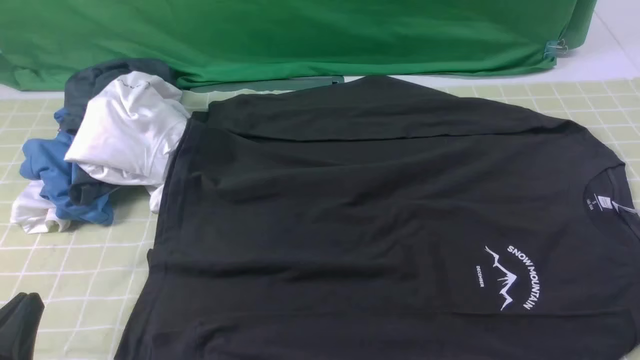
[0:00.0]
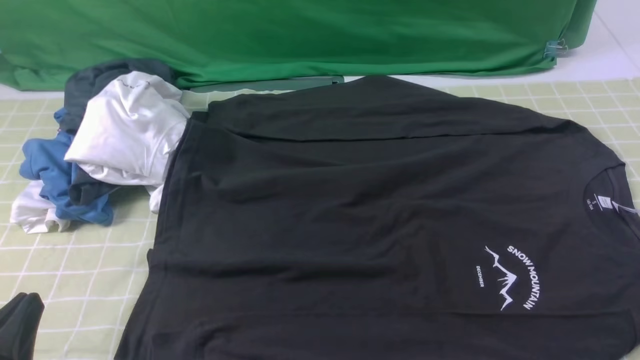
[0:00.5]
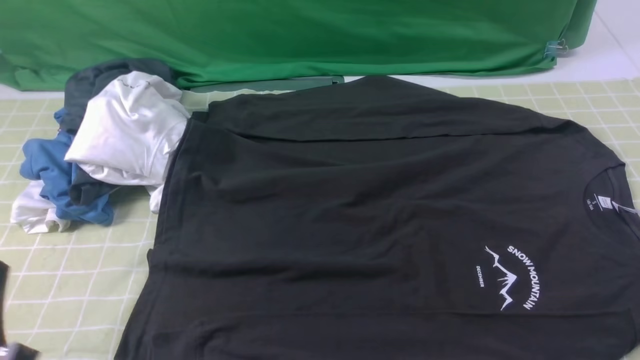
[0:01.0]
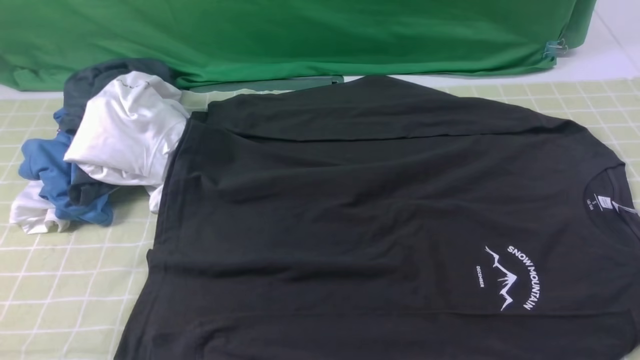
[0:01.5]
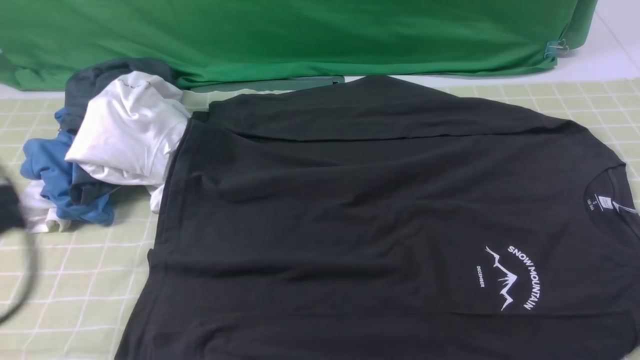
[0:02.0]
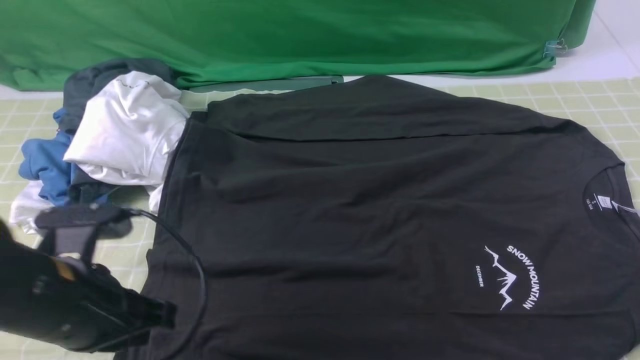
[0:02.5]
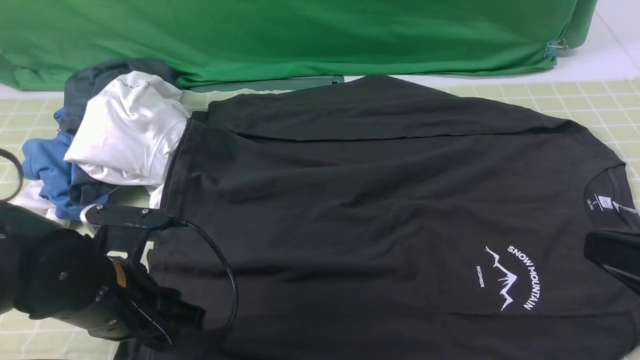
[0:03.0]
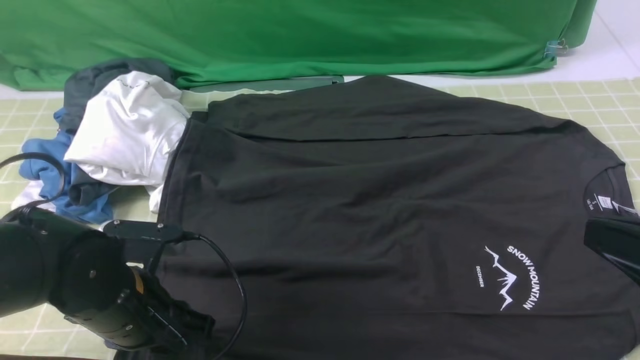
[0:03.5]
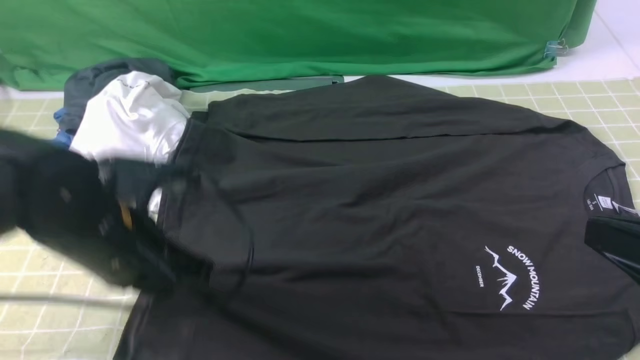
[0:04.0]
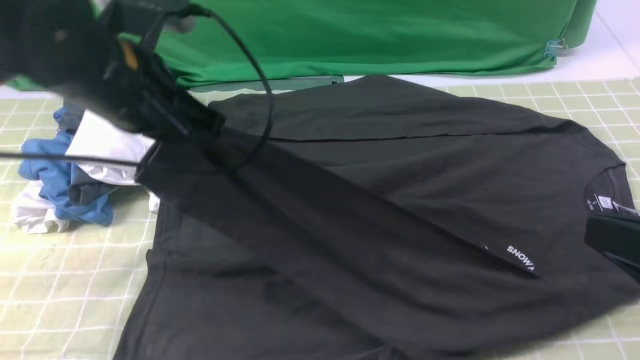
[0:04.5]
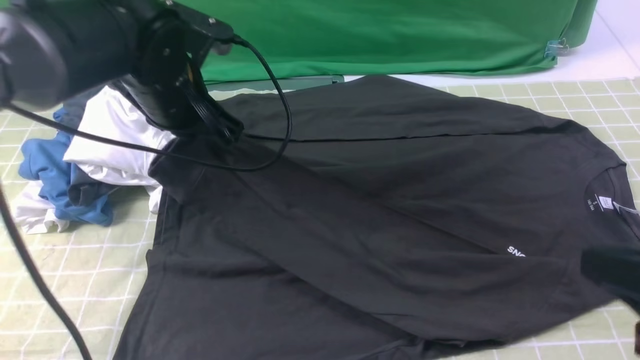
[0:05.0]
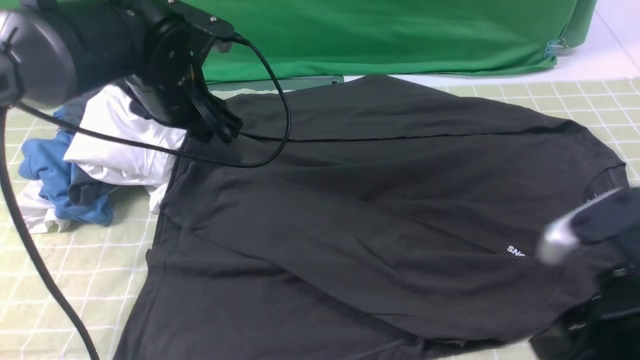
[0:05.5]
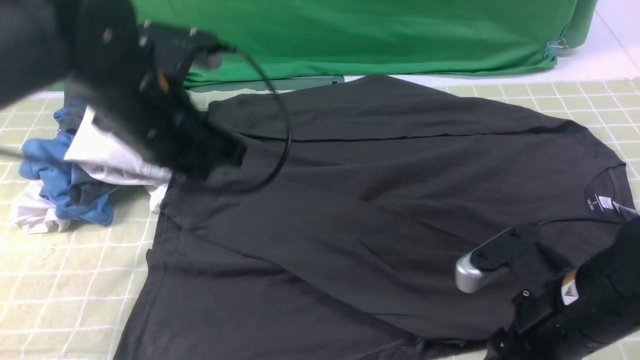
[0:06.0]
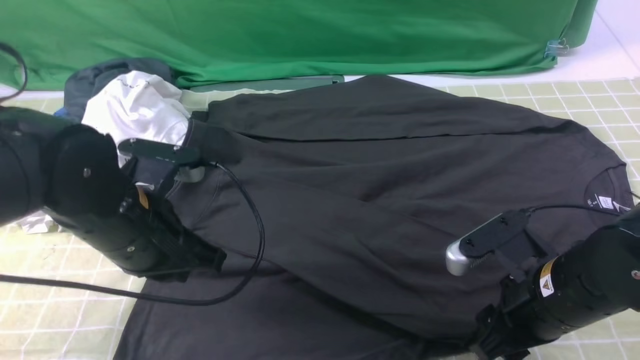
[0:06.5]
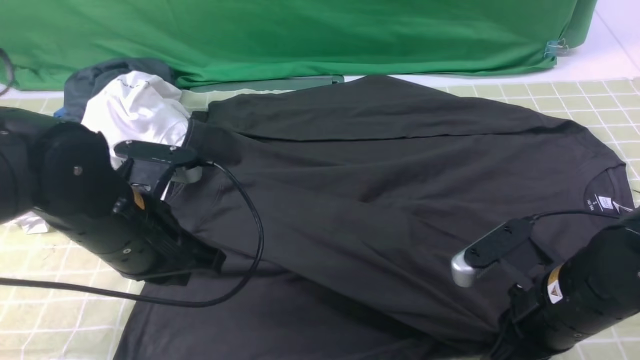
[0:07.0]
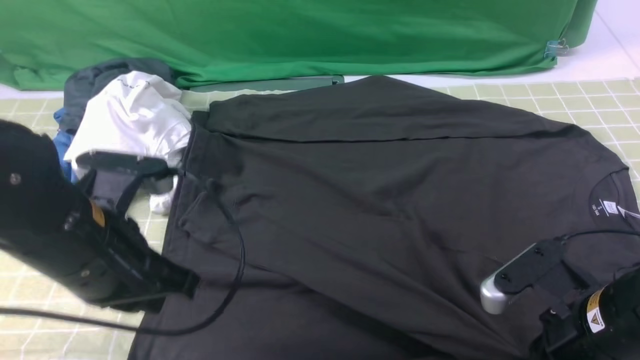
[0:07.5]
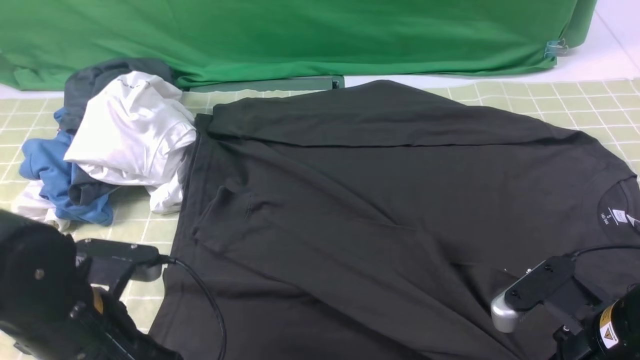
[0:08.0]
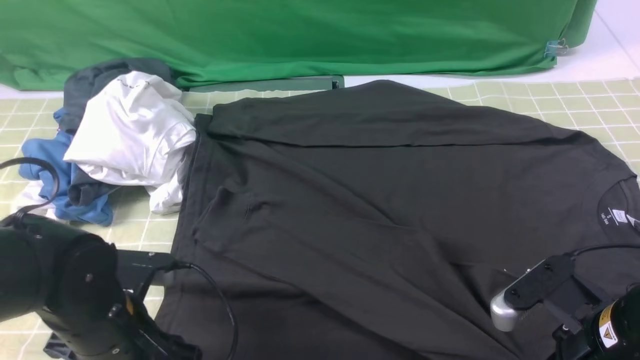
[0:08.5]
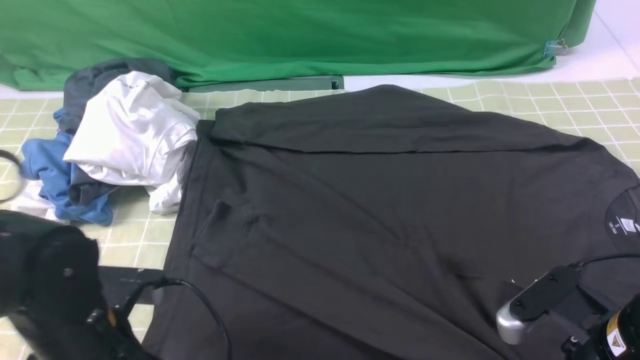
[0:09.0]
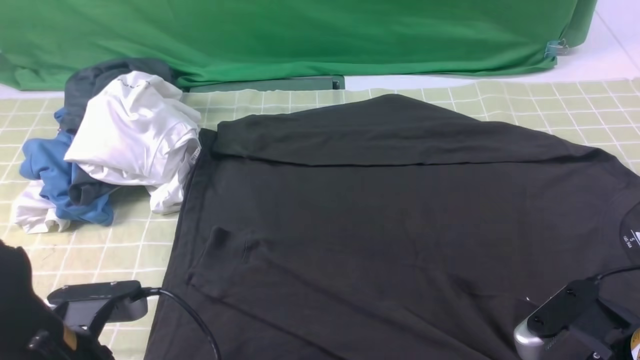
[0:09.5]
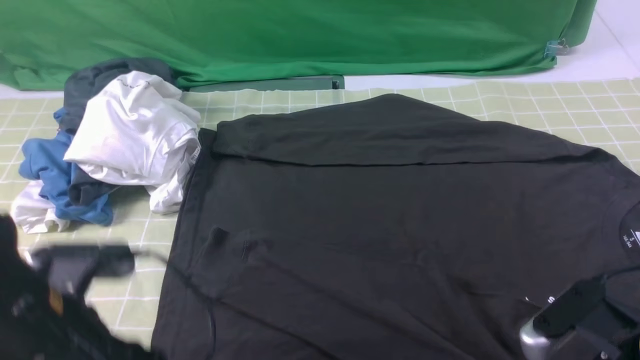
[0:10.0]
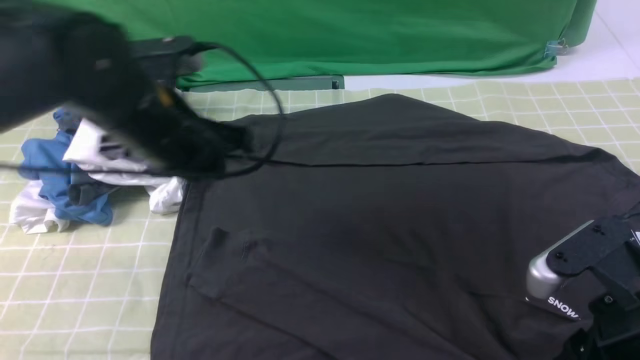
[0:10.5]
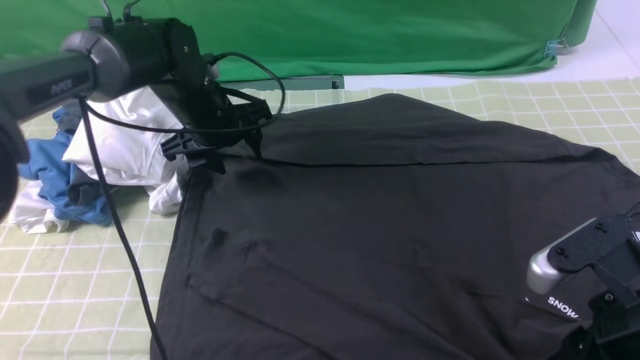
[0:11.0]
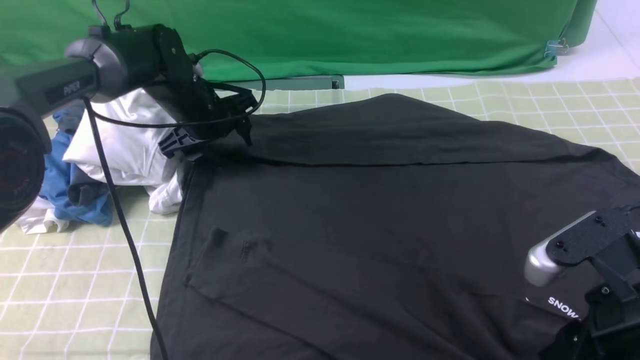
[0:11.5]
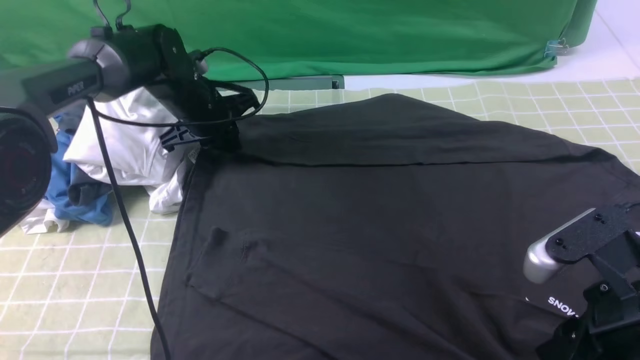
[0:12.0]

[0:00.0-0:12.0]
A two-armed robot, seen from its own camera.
Step, 0:00.0 to 0:03.5: use the left arm to clamp the cuff closest to it.
Step, 0:04.0 to 0:05.0: use the left arm to drag and place the cuff at the centered position on the left edge of the fabric.
Step, 0:05.5 to 0:12.0: use the left arm to clamp the cuff farthest from it.
0:00.0 to 0:02.0: The left gripper travels upward and forward by approximately 15 cm.
0:02.0 to 0:04.0: The right gripper travels to the left and upward by approximately 10 cm, and closes. Meanwhile the left gripper travels forward, downward and to the right by about 15 cm, and opens and closes again.
0:04.0 to 0:06.0: The right gripper moves downward, forward and to the left, roughly 15 cm, and opens. The left gripper is displaced forward by approximately 5 cm, and opens, then closes again.
0:06.0 to 0:08.0: The left gripper shifts some 15 cm backward and downward, and opens its fingers, while the right gripper closes its fingers.
0:08.0 to 0:10.0: The left gripper travels upward by approximately 5 cm, and closes, then reopens. The right gripper opens up.
0:10.0 to 0:12.0: The left gripper moves forward, roughly 30 cm, and closes its fingers.

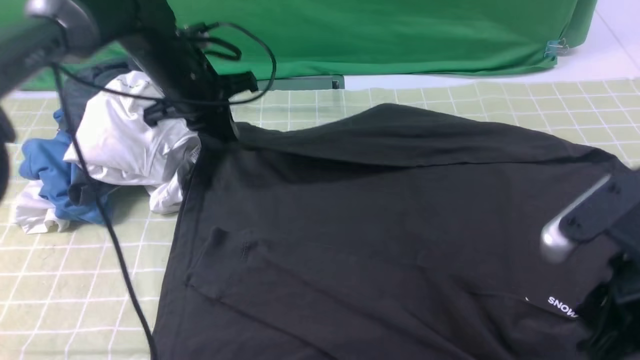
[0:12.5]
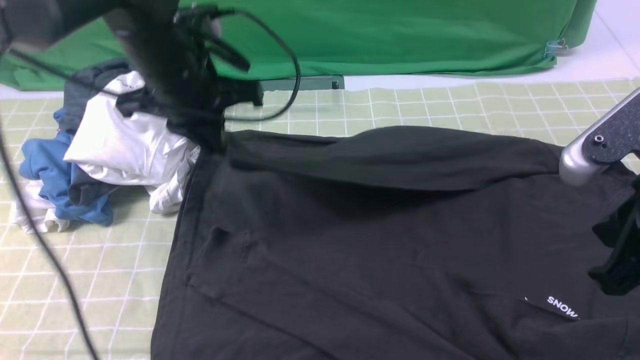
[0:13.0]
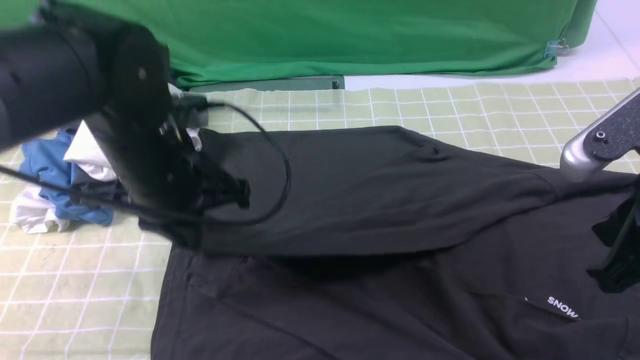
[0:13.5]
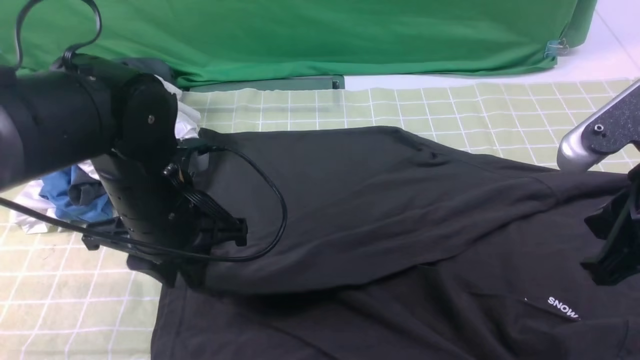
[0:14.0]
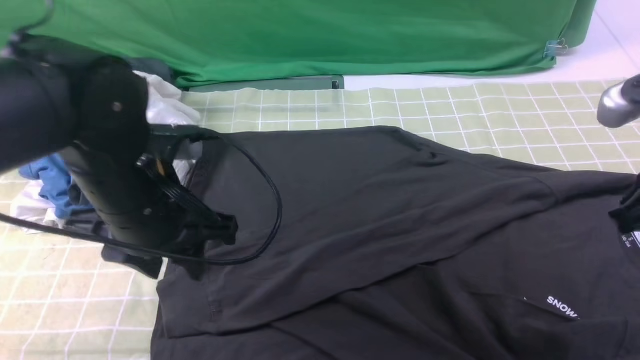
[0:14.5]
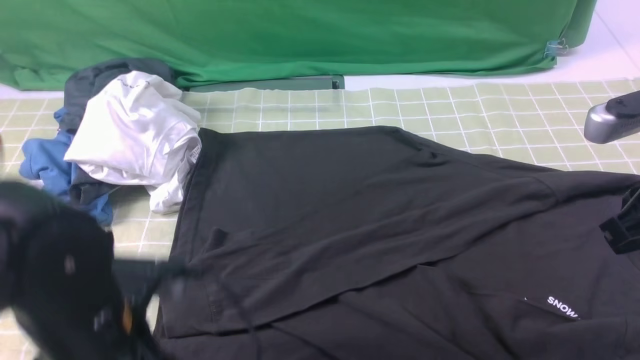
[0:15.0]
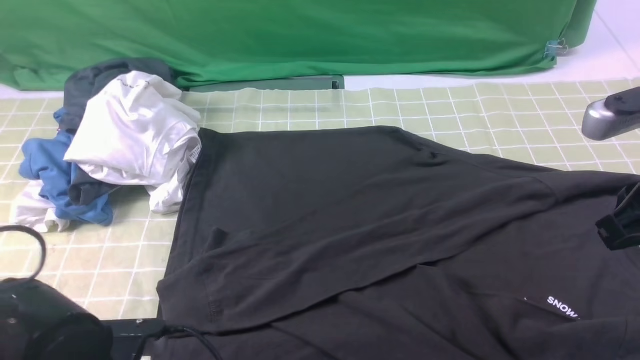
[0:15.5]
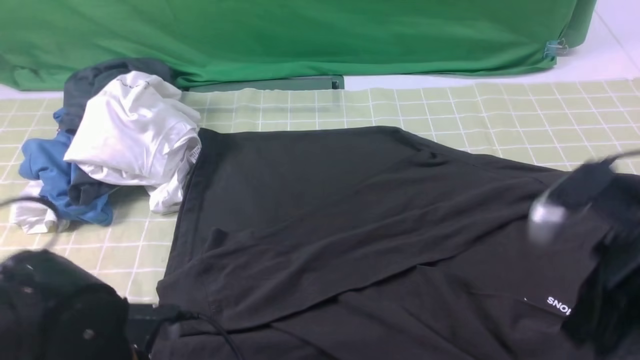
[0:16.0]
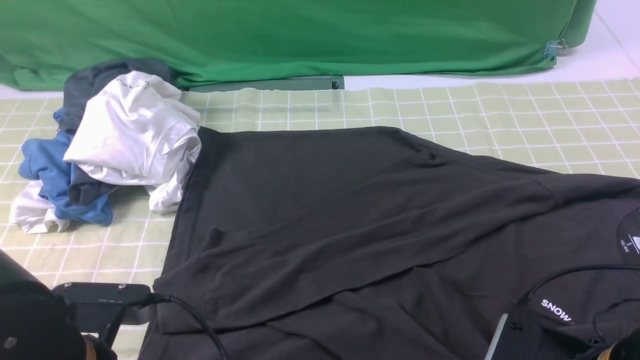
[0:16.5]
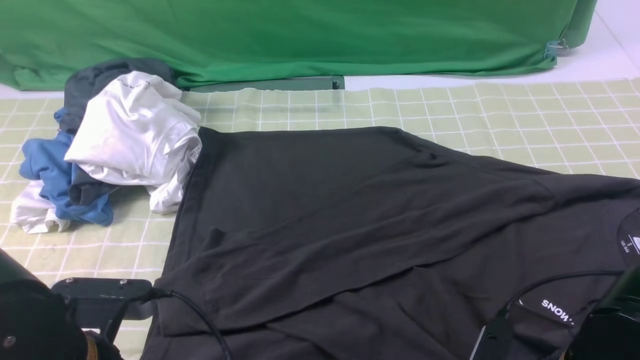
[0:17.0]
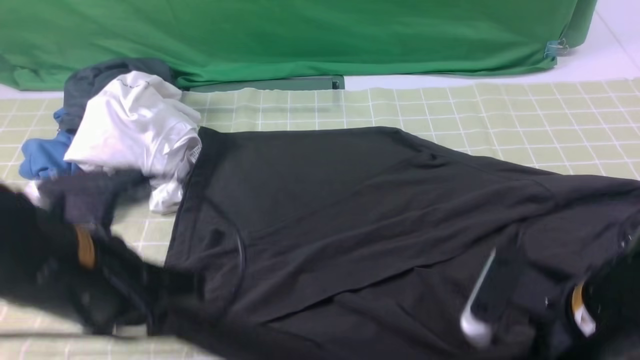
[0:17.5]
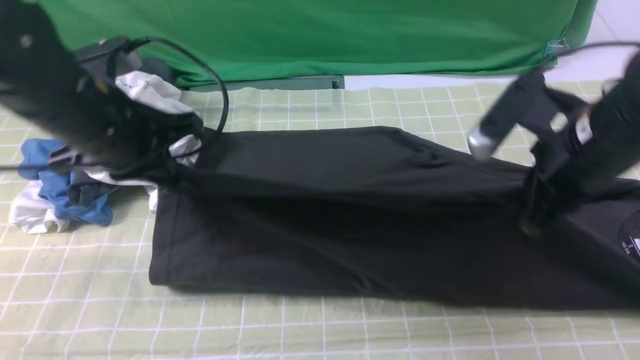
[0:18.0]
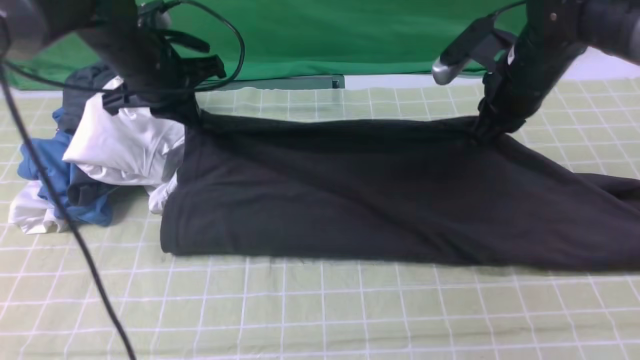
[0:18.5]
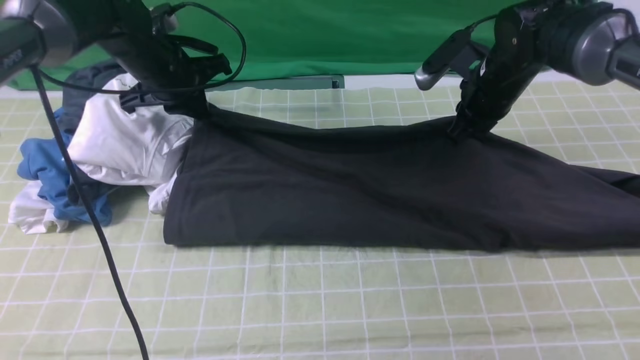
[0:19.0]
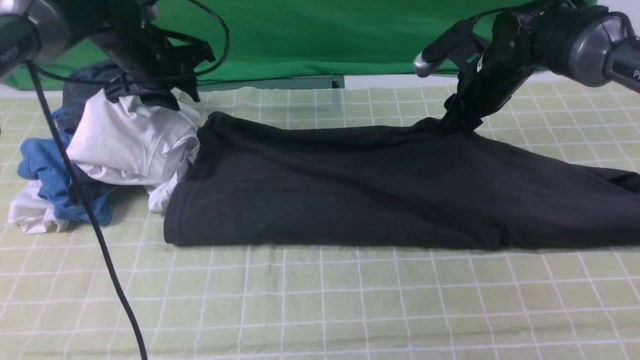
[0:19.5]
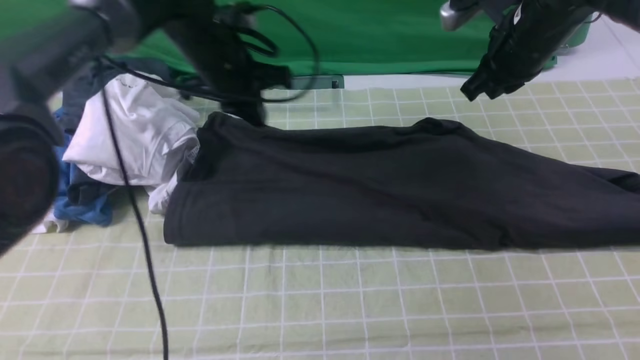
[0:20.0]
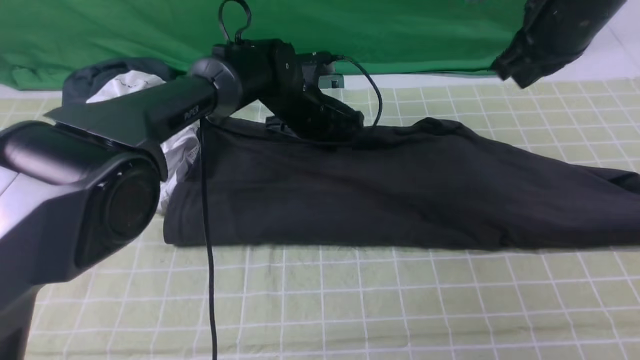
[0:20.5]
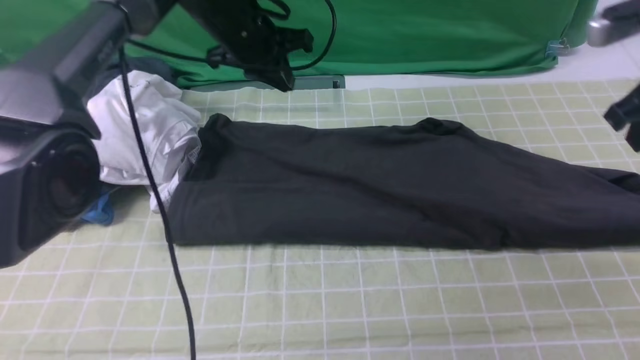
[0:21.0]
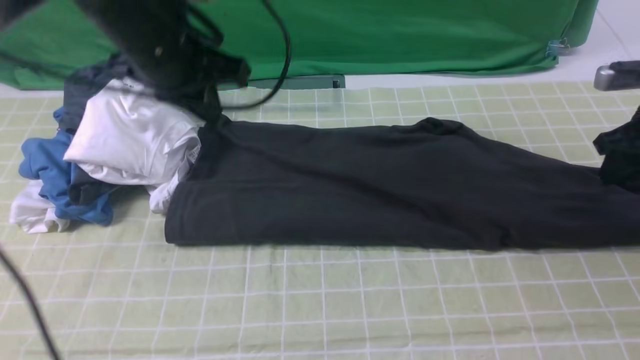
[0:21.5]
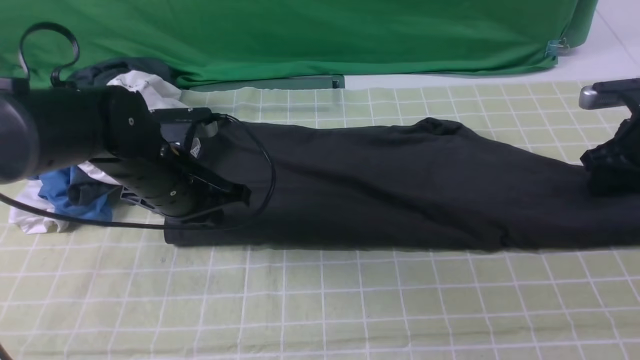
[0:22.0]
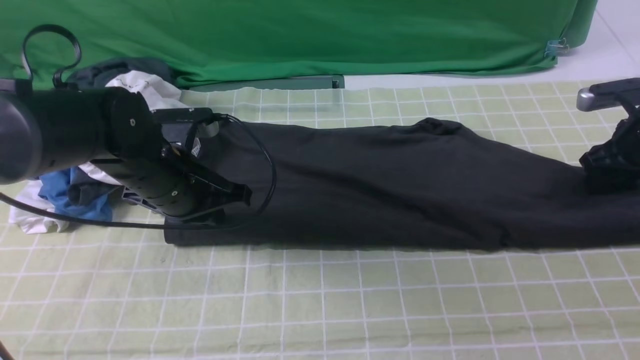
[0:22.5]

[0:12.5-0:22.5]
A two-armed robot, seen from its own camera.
Step, 0:12.5 to 0:14.0: use the left arm to drag and drop the cuff onto the cuff closest to the left arm.
Step, 0:14.5 to 0:17.0: use both arms simultaneously to clamp the lower edge of the clothing fabric.
Step, 0:17.5 to 0:19.5: use both arms to drag the lower edge of the fabric forward and fold it over the upper edge.
0:12.5 to 0:14.5: The left gripper moves backward, approximately 20 cm, and opens. Meanwhile the right gripper travels forward by approximately 5 cm.
0:14.5 to 0:16.5: The left gripper travels backward by some 10 cm, and closes its fingers. The right gripper is displaced downward, backward and to the left by approximately 20 cm, and opens.
0:16.5 to 0:18.5: Both grippers travel together forward, roughly 30 cm. The right gripper closes its fingers.
0:18.5 to 0:20.5: The left gripper moves to the right, downward and forward, about 20 cm, and opens, then closes again. Meanwhile the right gripper travels upward by roughly 10 cm, and opens, then closes once more.
0:20.5 to 0:22.5: The left gripper is displaced backward and to the left by roughly 20 cm; the right gripper travels downward and to the right by about 25 cm, and opens its fingers.
